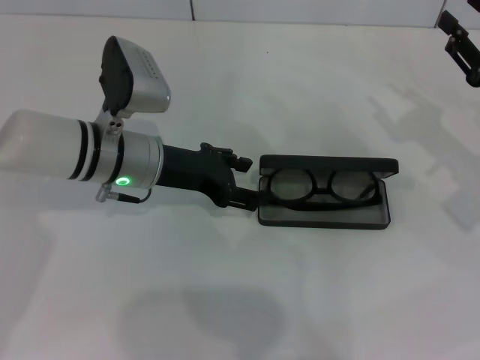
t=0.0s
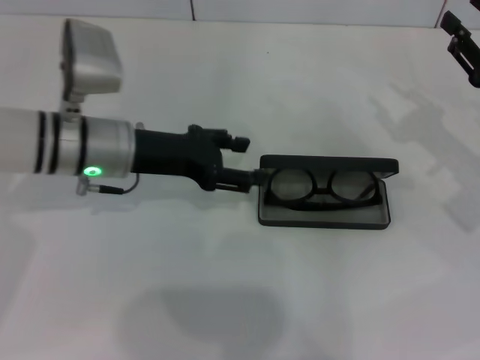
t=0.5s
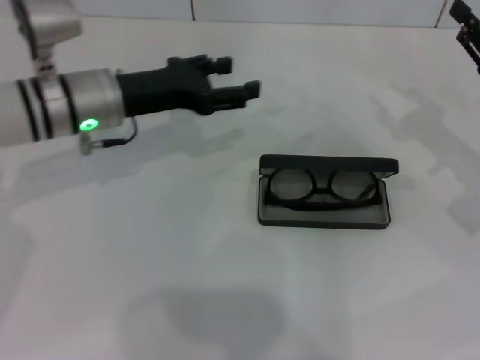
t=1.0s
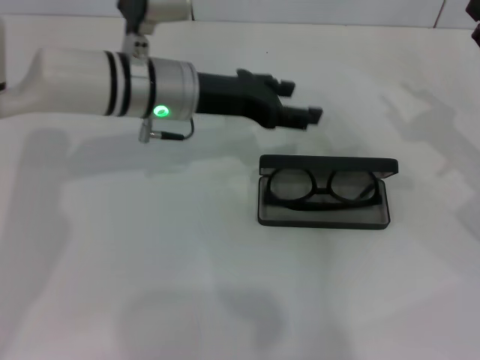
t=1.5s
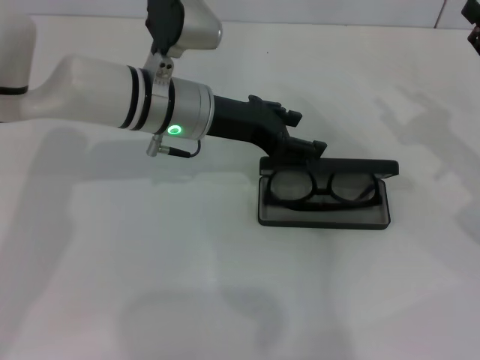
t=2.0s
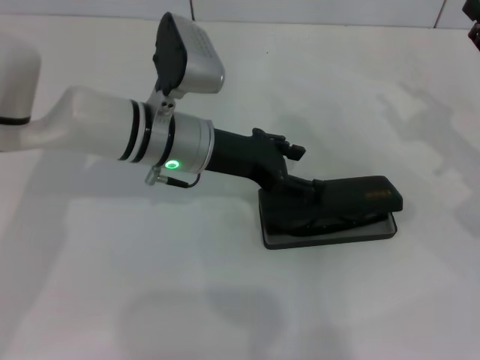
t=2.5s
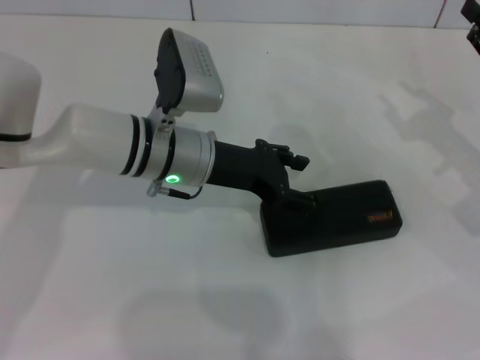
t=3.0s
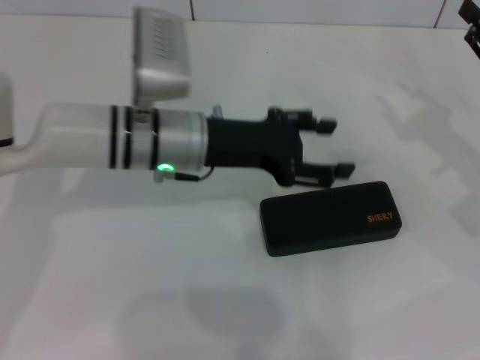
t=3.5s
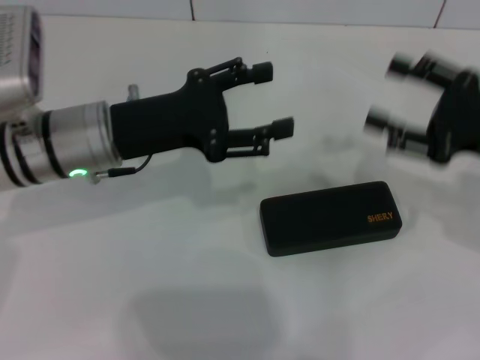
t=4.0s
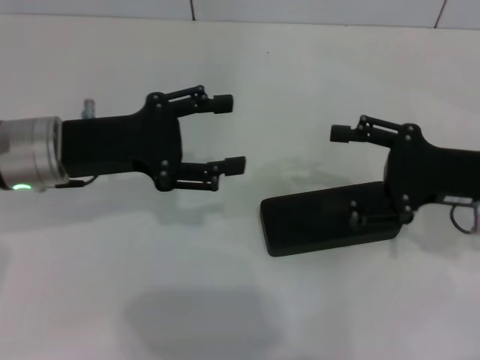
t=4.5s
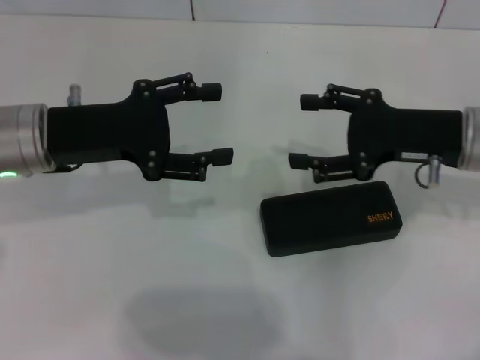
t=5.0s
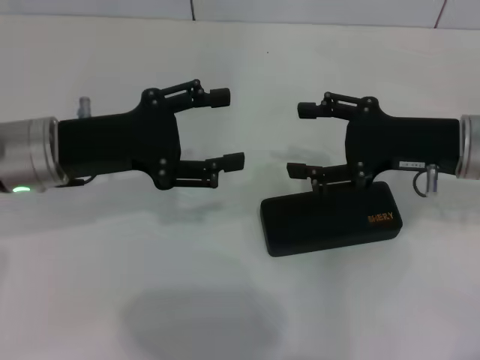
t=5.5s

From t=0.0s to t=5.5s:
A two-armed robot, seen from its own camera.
Step, from t=0.0s to t=3.0s: Close the glasses case with your left hand.
From t=0.0s to t=2.0s: The left gripper heads to the right, covering about 5 cm.
From t=3.5s to t=5.5s: The grippers both shift to the left by about 10 cm. The right gripper opens its fingers.
